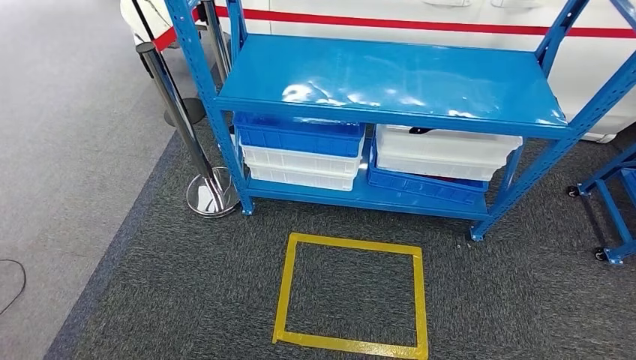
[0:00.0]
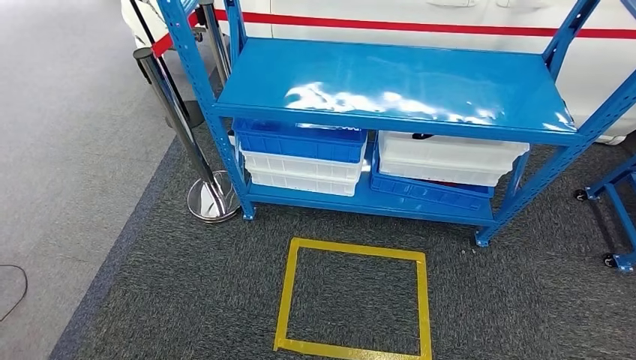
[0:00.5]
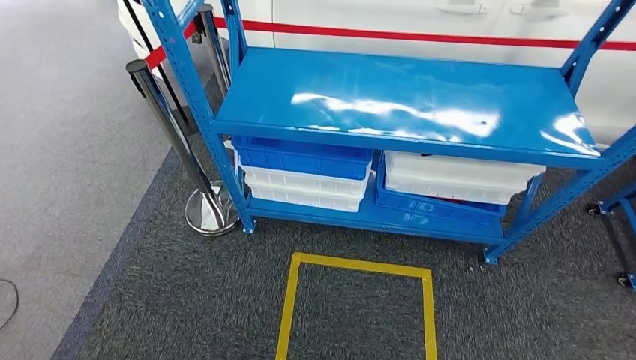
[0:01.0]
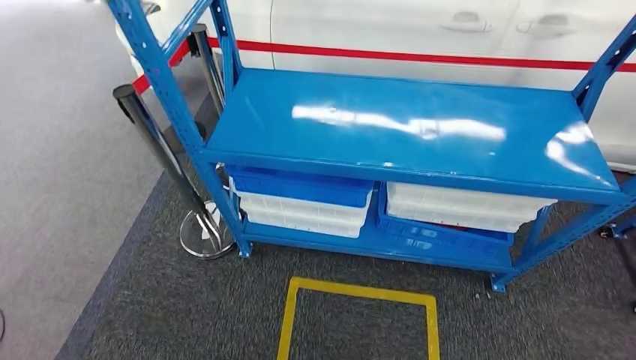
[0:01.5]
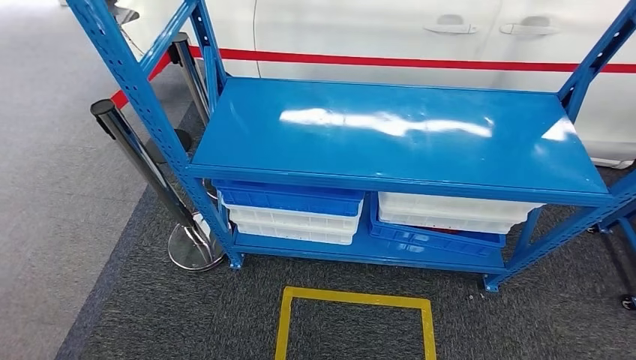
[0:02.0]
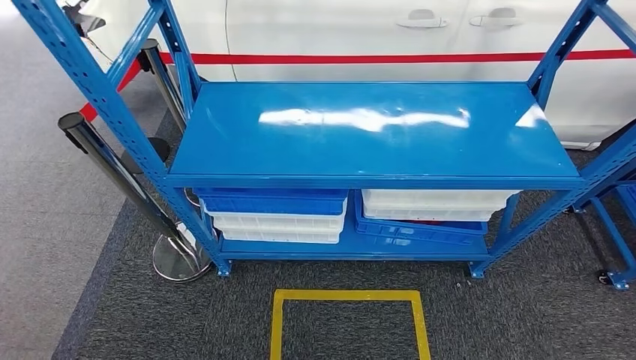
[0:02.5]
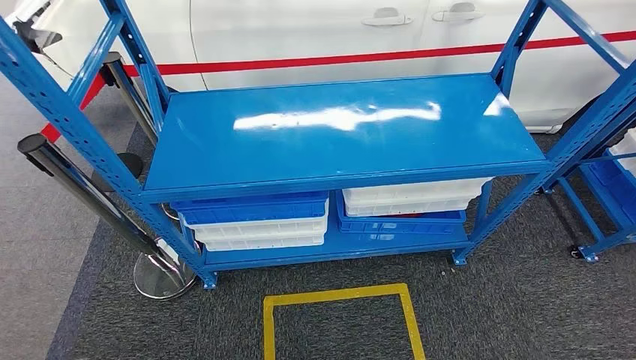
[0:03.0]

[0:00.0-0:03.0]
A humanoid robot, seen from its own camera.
Step, 0:00.0 to 0:03.0: Move to the initial position of the shelf.

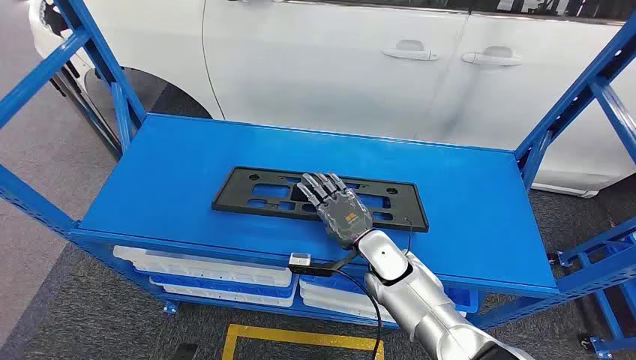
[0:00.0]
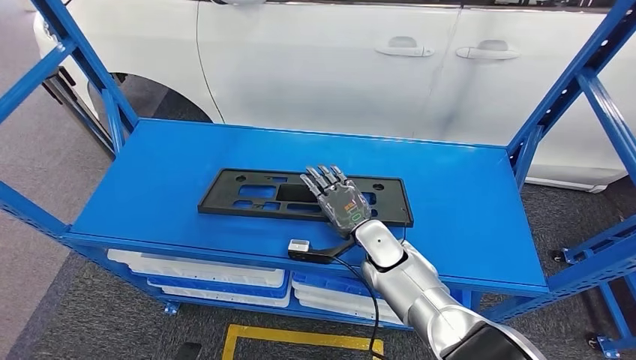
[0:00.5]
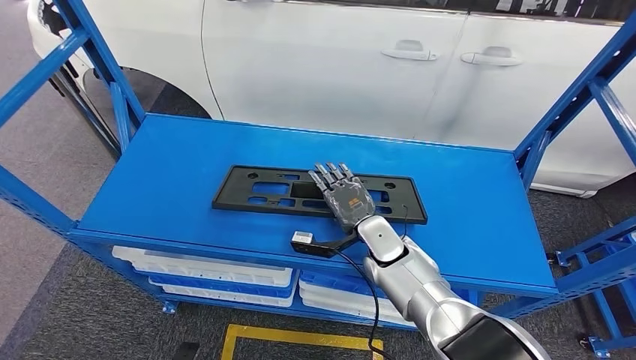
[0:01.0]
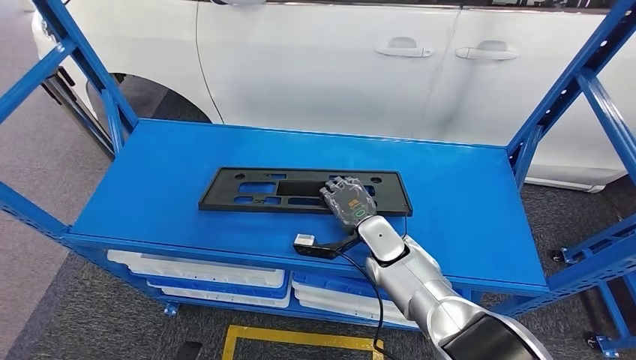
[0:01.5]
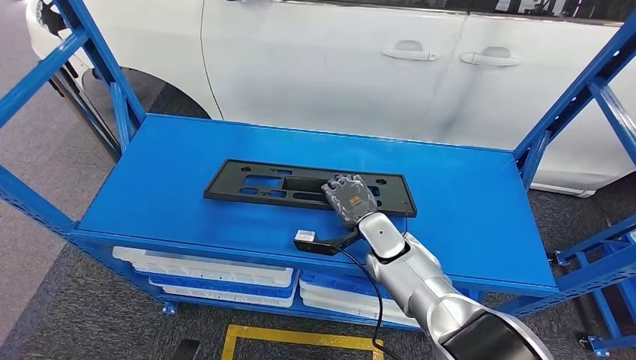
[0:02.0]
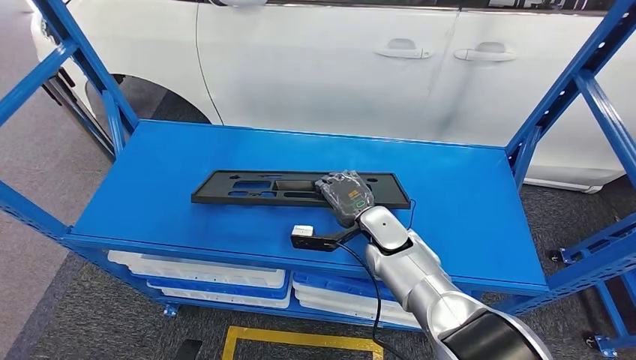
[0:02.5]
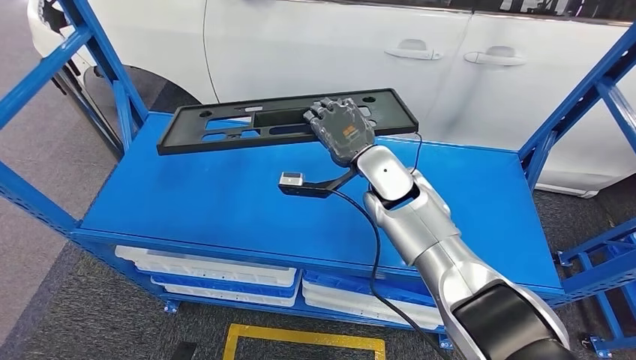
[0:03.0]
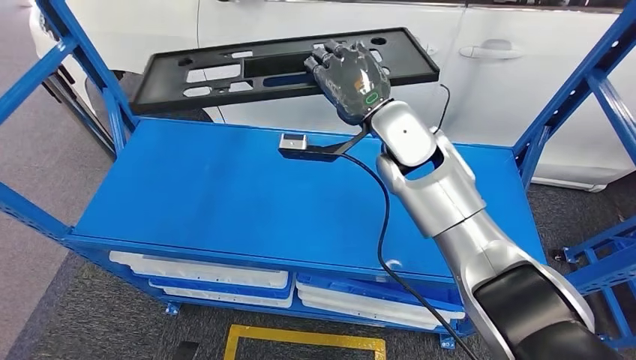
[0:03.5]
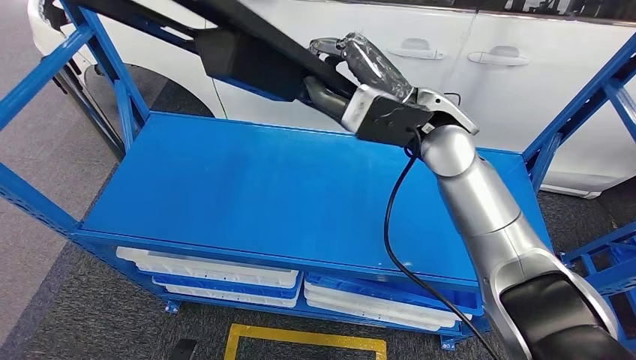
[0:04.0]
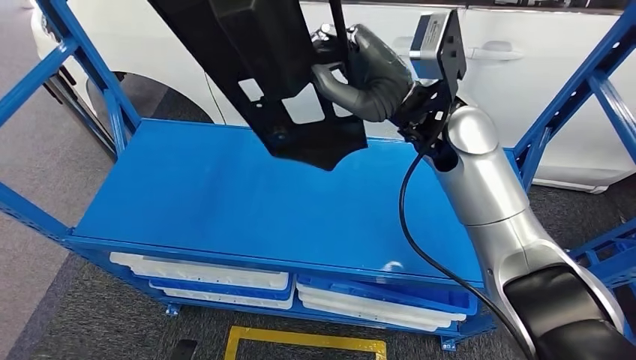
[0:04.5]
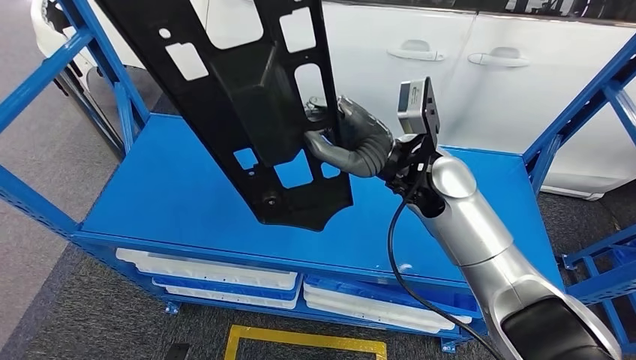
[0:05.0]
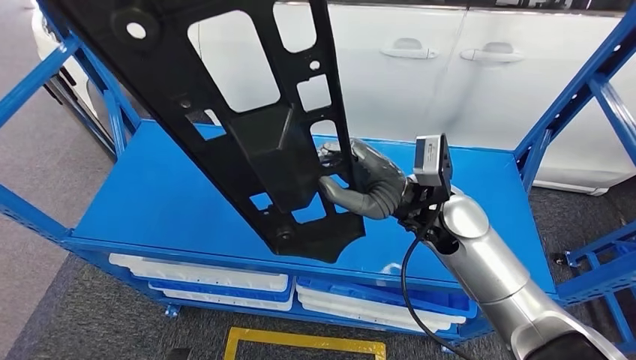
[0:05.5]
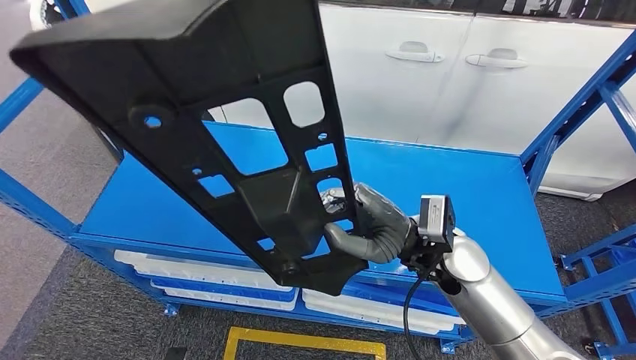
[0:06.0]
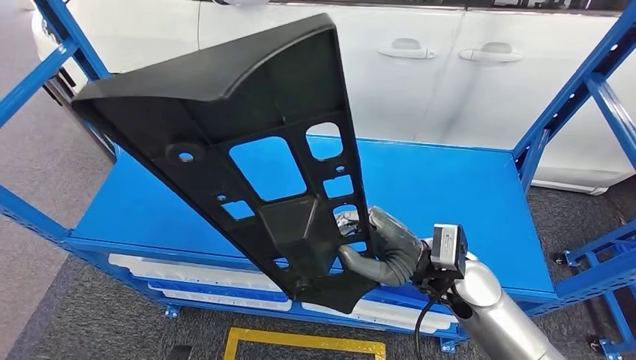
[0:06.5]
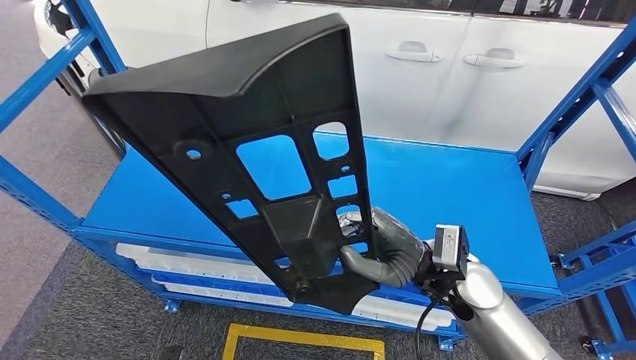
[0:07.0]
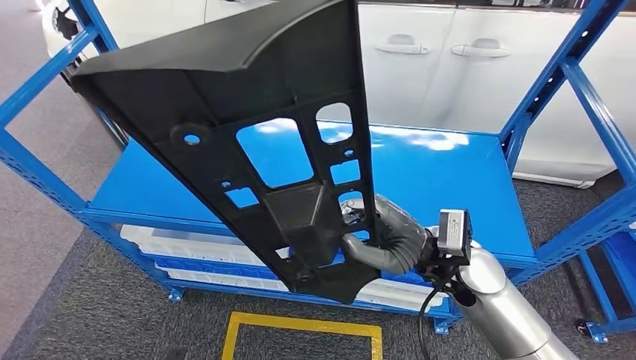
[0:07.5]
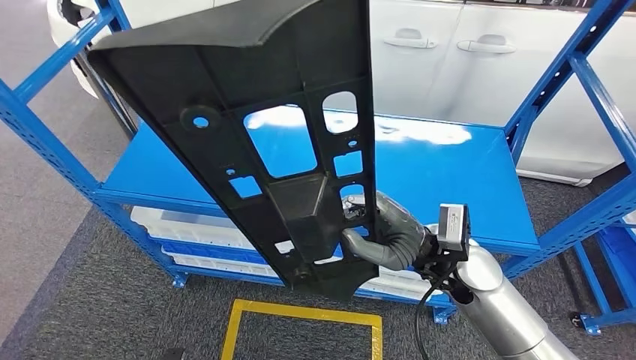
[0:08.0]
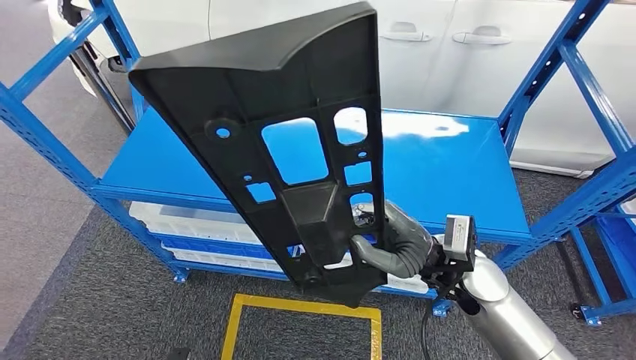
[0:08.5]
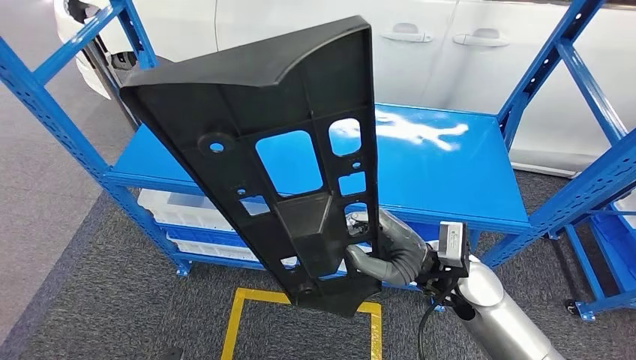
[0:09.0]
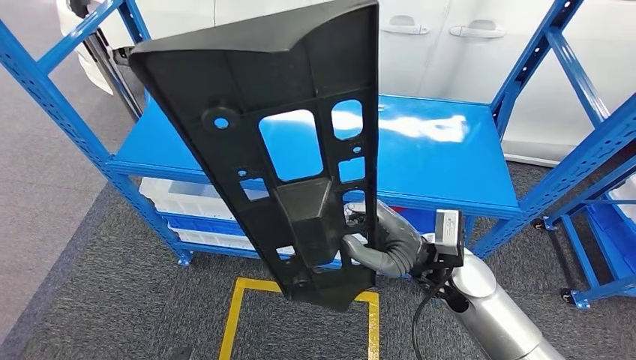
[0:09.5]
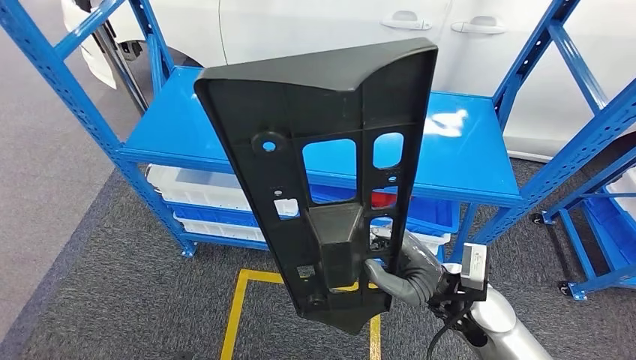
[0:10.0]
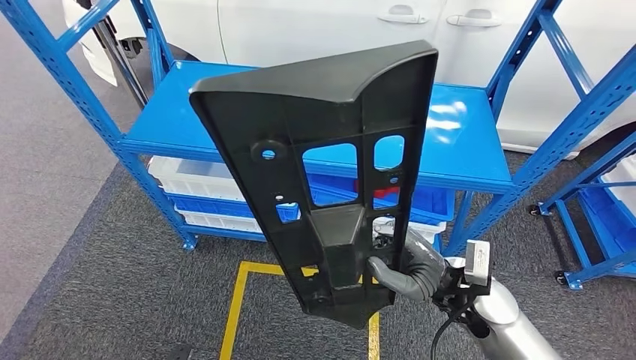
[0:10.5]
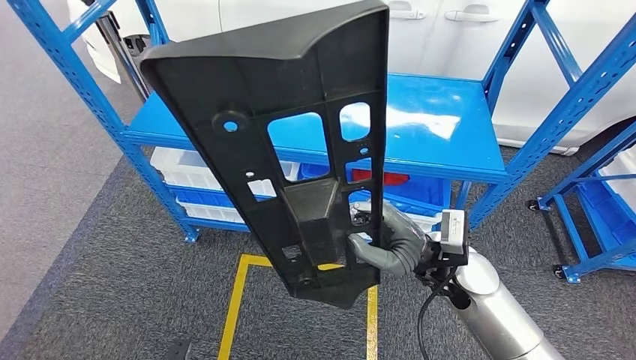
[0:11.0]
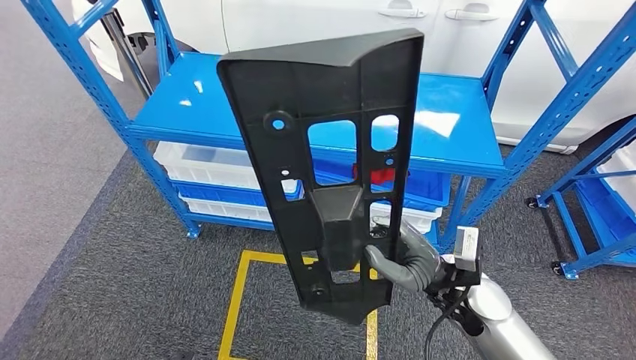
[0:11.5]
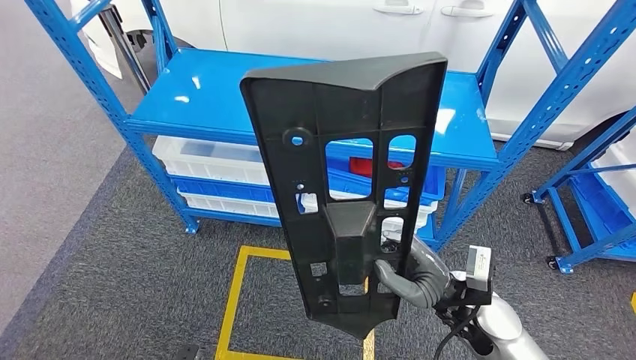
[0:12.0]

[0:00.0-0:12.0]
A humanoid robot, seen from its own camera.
Step, 0:00.0 to 0:03.0: Pick up the large material from the shelf.

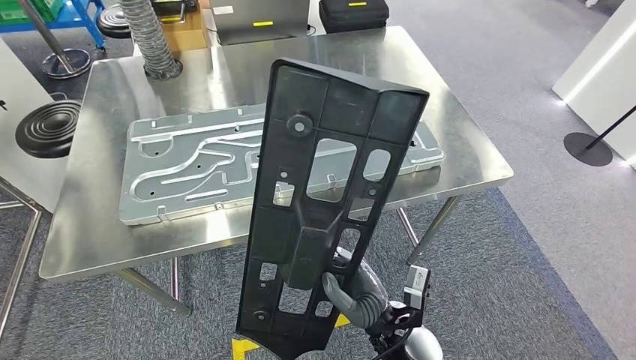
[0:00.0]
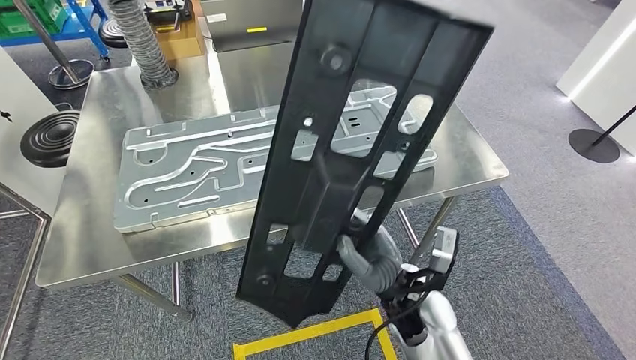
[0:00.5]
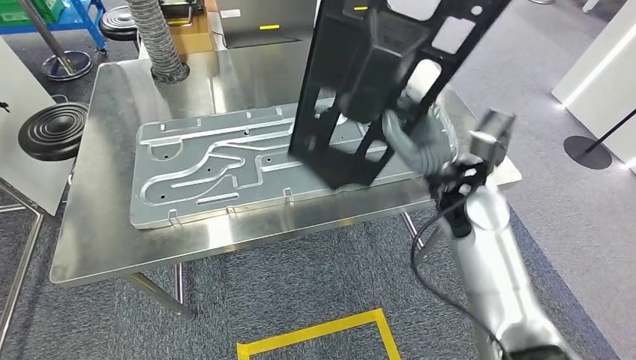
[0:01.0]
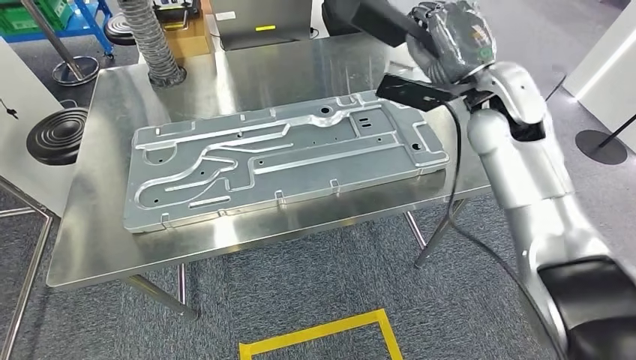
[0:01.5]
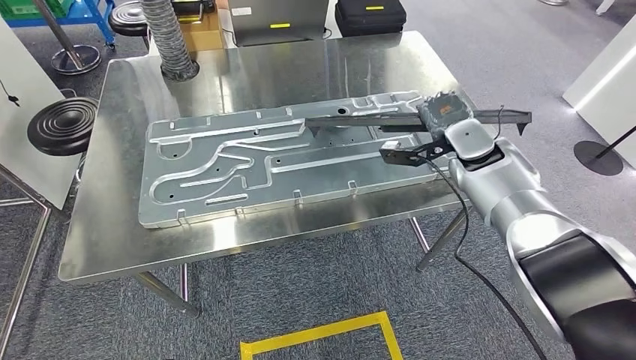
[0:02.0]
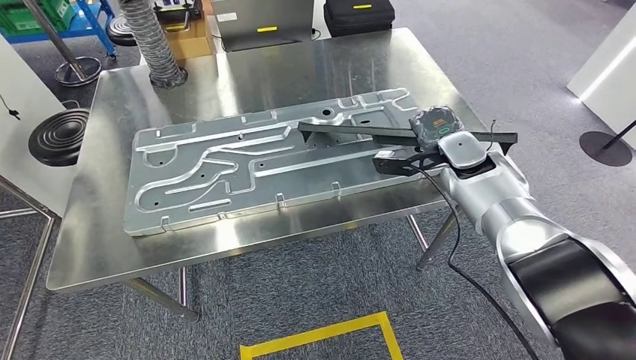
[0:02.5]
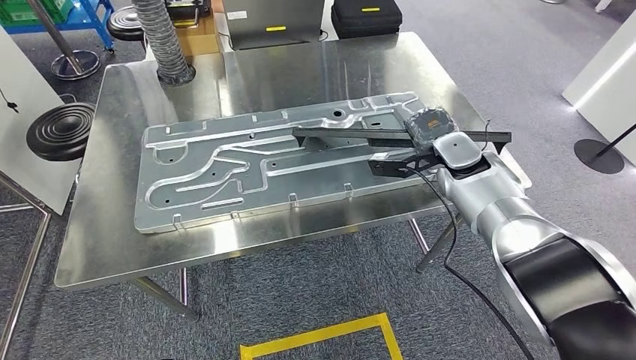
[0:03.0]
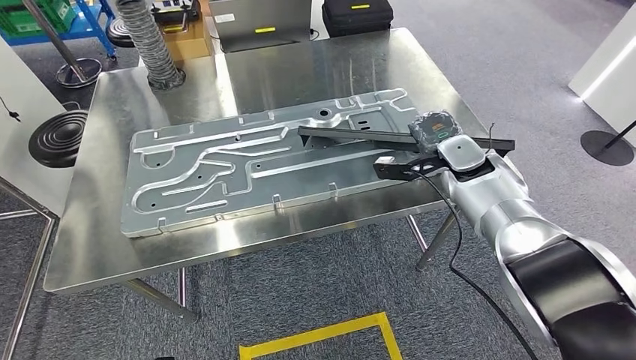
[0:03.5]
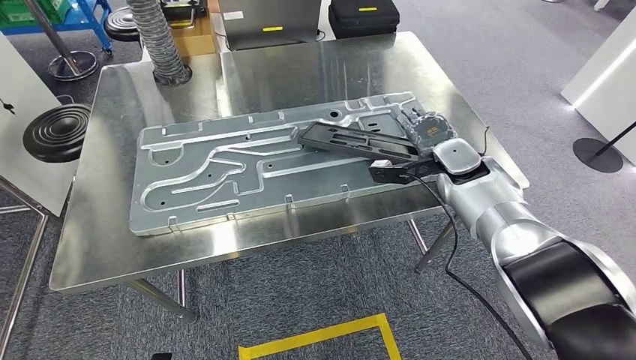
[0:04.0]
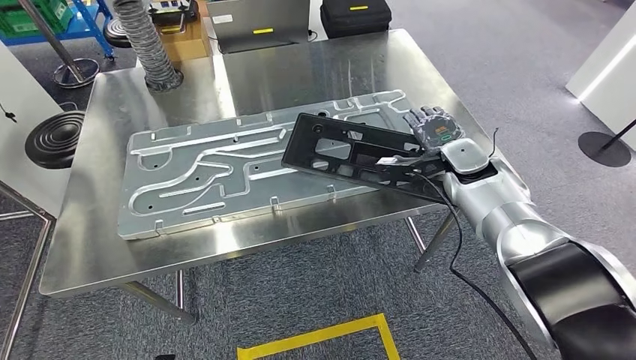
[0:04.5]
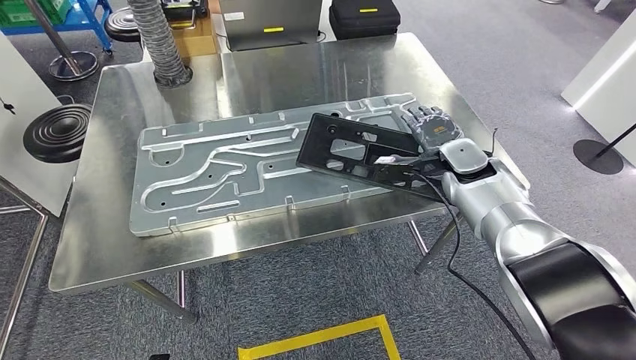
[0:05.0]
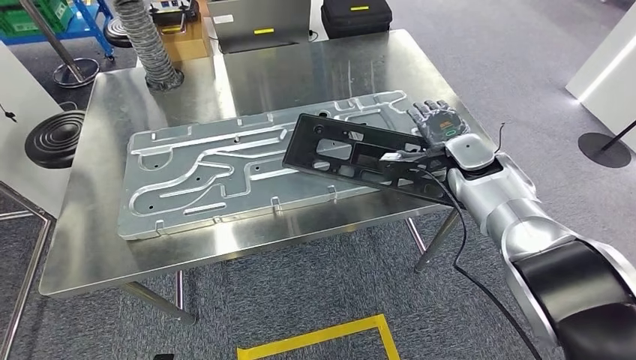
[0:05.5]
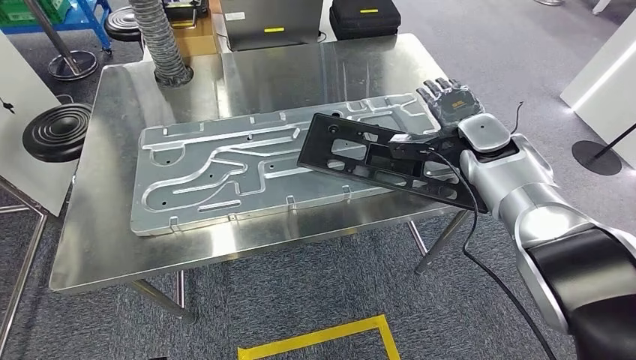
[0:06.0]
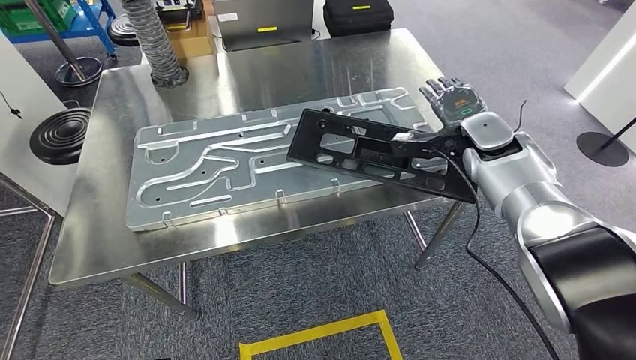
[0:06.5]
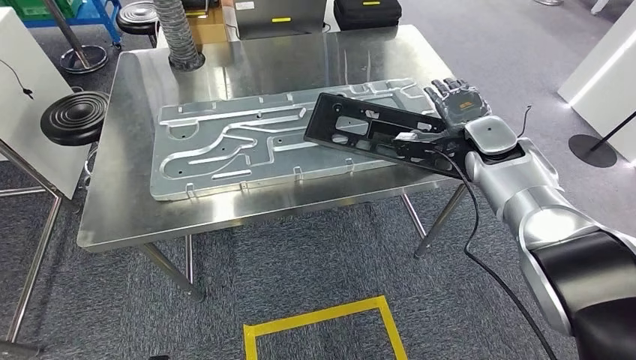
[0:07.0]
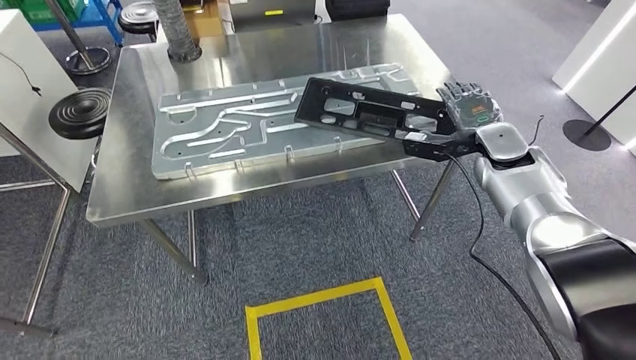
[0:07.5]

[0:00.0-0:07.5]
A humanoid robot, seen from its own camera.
Step, 0:02.0 to 0:06.0: Insert the large material into the corresponding slot on the workbench.
